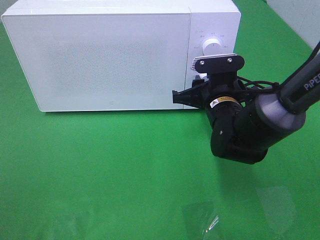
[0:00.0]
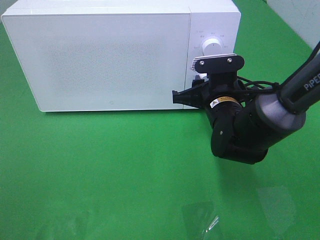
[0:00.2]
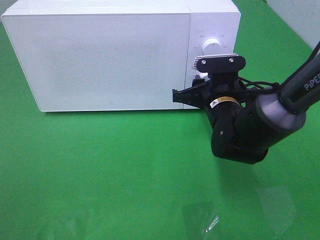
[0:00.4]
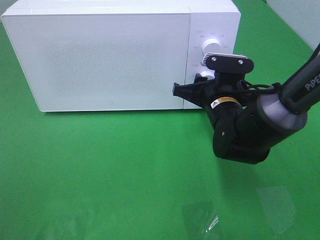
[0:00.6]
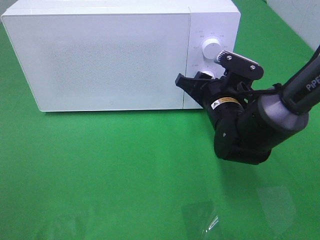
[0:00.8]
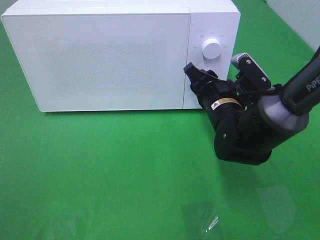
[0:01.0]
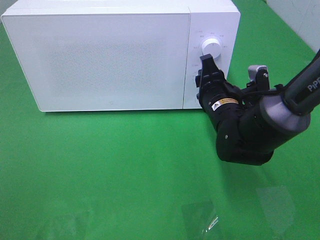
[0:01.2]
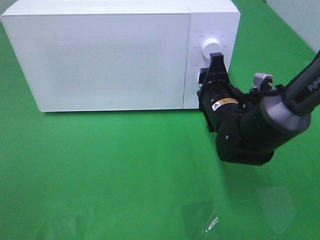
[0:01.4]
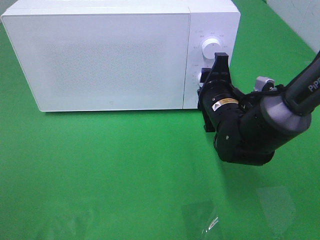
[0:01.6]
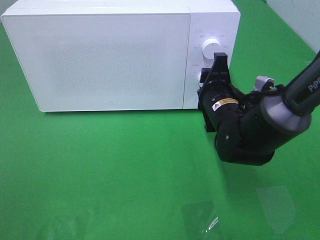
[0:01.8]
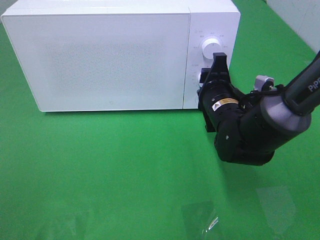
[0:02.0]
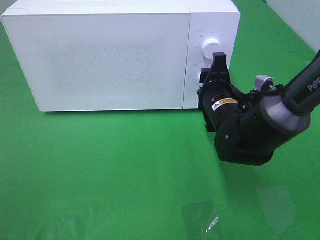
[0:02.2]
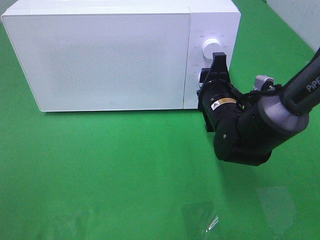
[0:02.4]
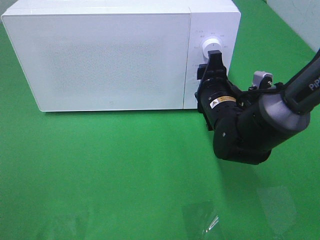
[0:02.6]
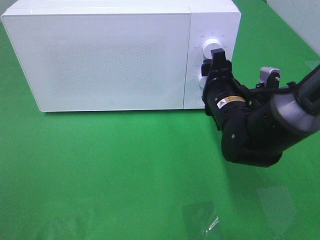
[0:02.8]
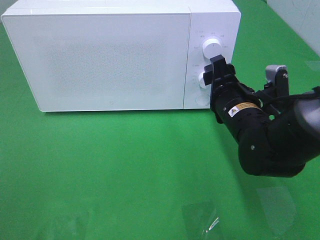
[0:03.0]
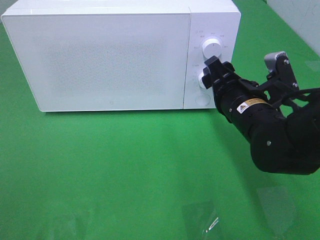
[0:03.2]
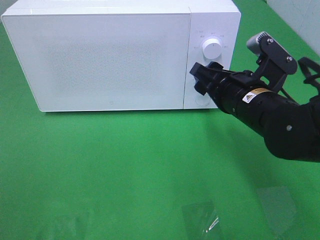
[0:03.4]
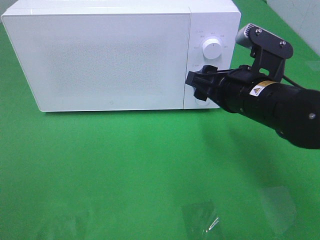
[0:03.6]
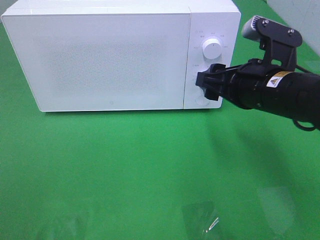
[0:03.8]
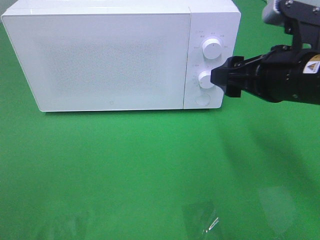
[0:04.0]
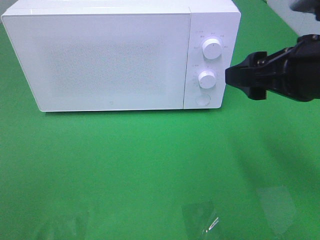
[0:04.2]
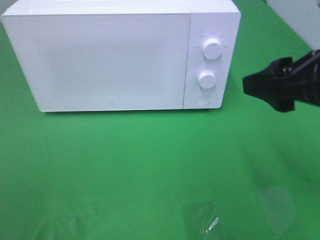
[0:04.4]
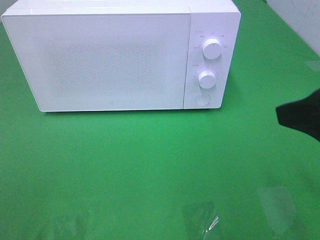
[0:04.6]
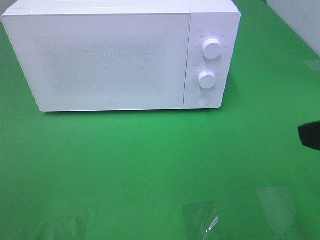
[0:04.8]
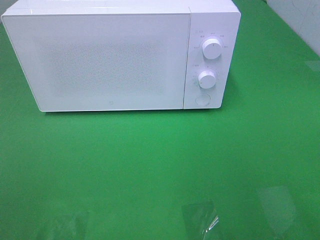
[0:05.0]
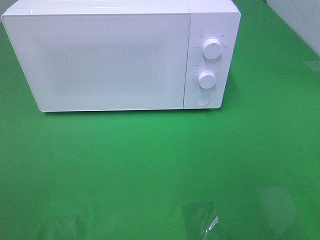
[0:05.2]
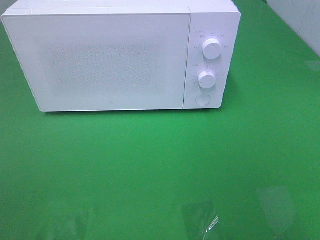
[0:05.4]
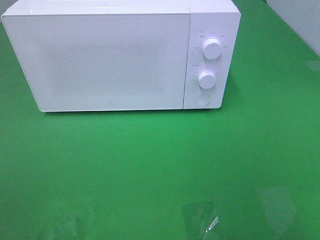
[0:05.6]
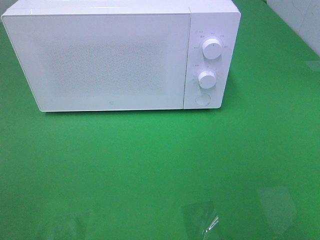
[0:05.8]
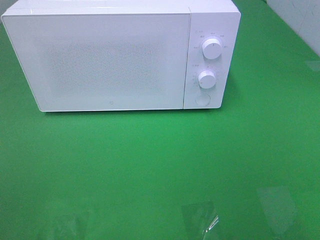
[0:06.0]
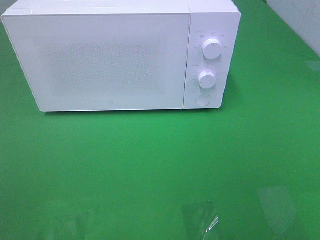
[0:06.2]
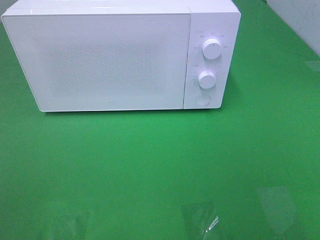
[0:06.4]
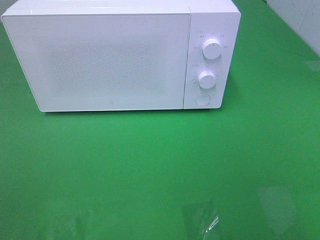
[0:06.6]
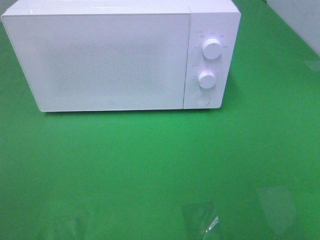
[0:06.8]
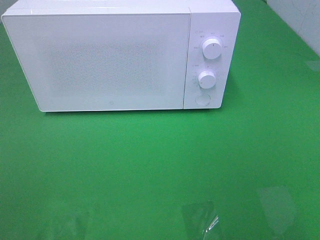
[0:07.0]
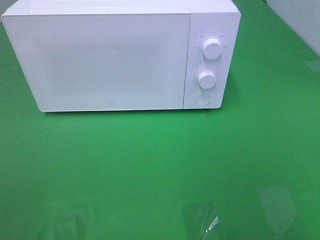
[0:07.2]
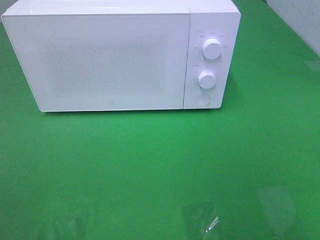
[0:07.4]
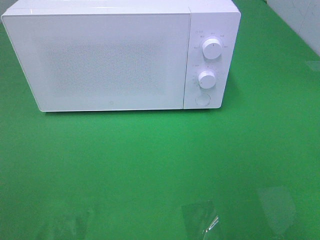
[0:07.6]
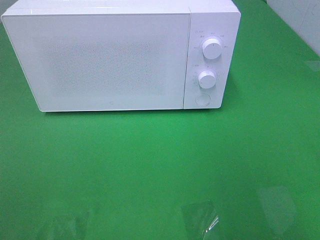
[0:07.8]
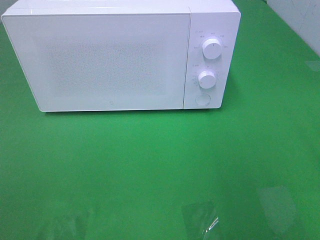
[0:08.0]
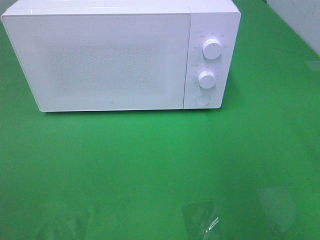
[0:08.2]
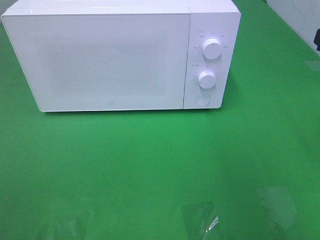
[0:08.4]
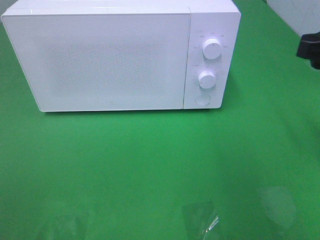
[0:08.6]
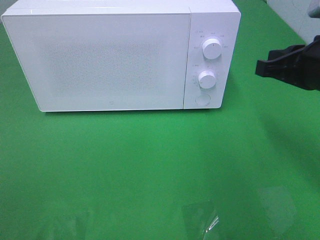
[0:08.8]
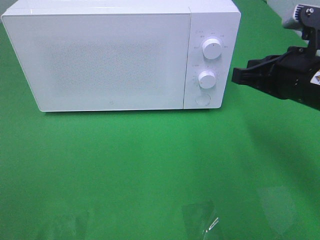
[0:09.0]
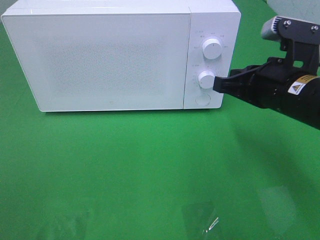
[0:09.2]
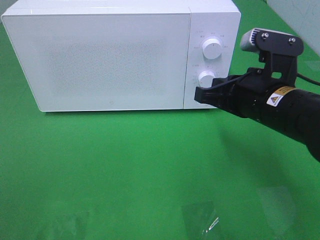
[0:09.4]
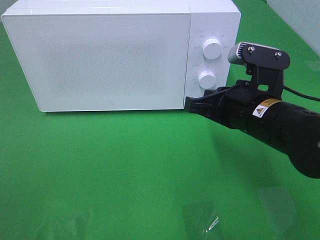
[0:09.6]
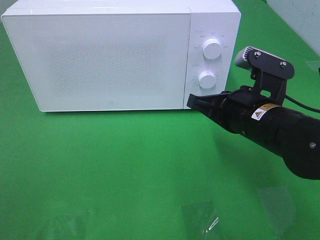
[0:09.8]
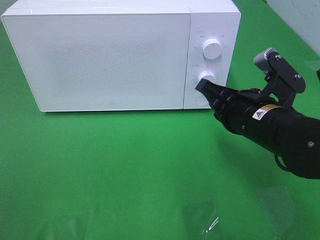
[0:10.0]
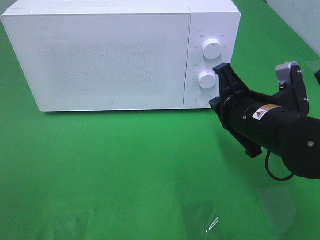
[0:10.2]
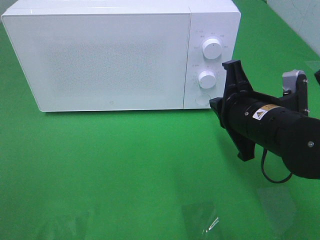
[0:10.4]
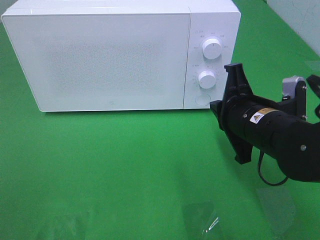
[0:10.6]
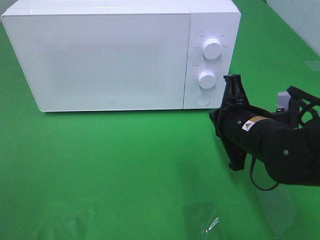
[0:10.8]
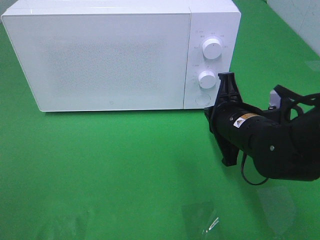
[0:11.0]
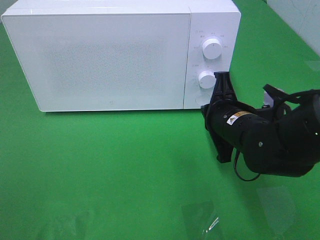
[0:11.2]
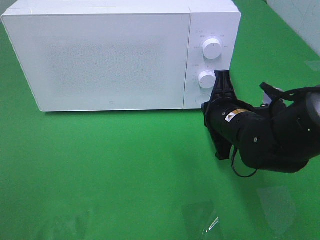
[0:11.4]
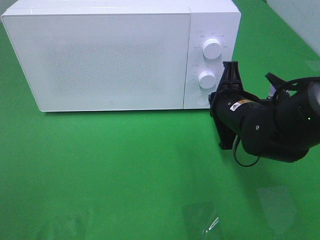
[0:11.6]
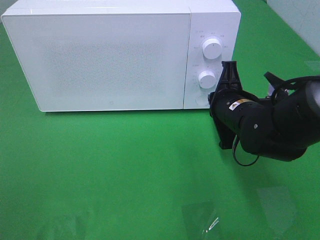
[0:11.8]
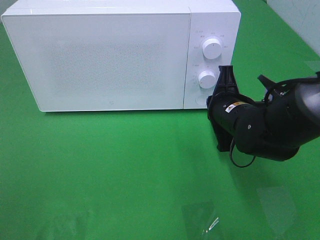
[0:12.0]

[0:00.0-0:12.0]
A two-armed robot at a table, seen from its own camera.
Task of the whole recording: Heat the burger.
Step, 0:00.0 to 0:02.4: Right hand: twist timer button.
0:03.0 to 0:04.4: The right gripper travels upward, backward and to the right by roughly 20 cm.
0:04.4 to 0:06.0: The right gripper heads backward and to the right, covering approximately 20 cm.
0:07.6 to 0:09.0: The right gripper heads forward, downward and to the left, covering about 20 cm, and closes up.
0:09.0 to 0:10.4: The right gripper travels to the left and downward by approximately 10 cm.
0:10.4 to 0:12.0: The right gripper shifts some 5 cm forward.

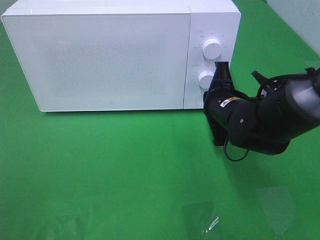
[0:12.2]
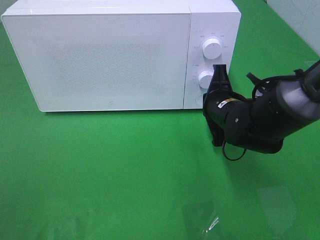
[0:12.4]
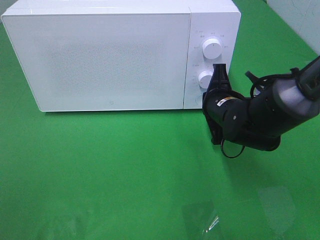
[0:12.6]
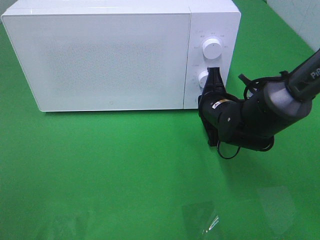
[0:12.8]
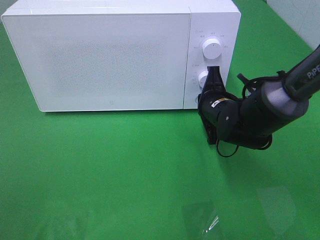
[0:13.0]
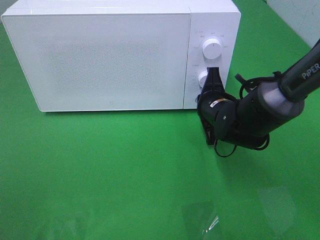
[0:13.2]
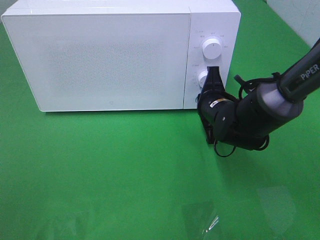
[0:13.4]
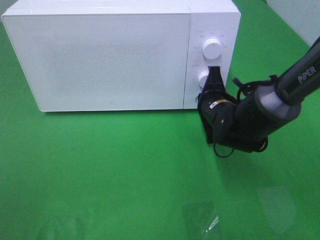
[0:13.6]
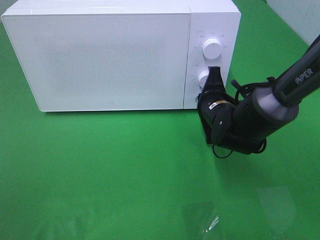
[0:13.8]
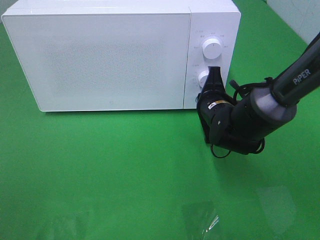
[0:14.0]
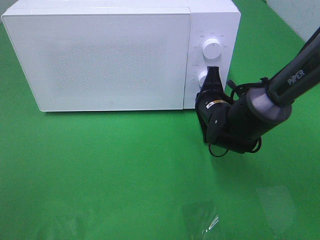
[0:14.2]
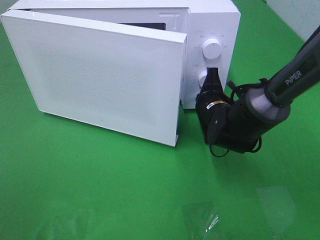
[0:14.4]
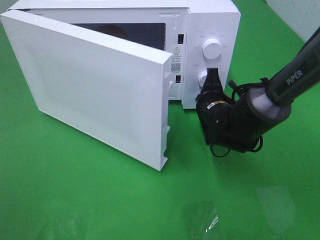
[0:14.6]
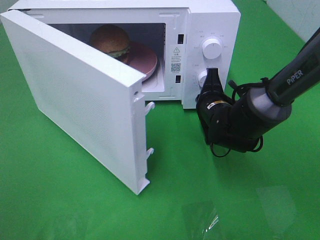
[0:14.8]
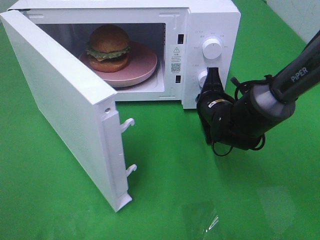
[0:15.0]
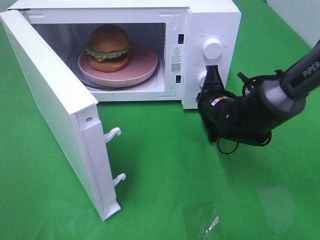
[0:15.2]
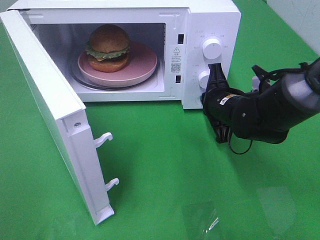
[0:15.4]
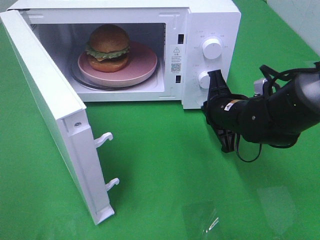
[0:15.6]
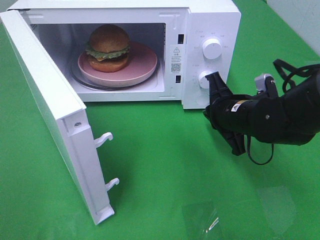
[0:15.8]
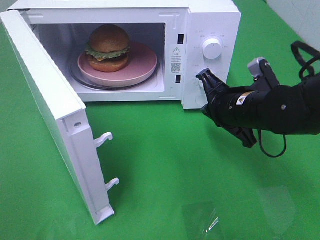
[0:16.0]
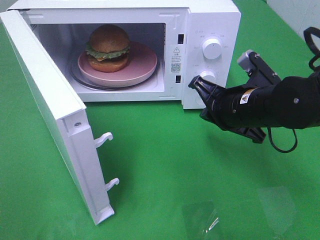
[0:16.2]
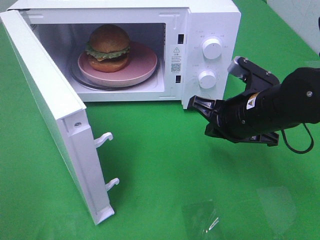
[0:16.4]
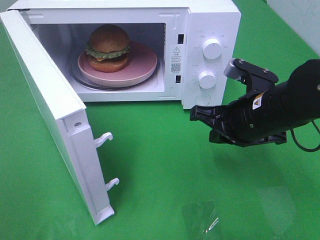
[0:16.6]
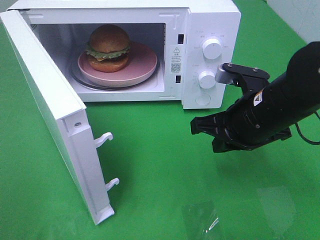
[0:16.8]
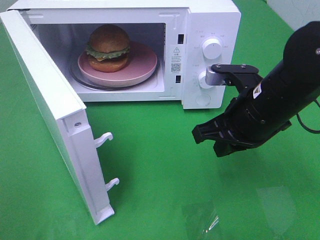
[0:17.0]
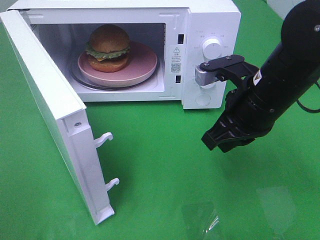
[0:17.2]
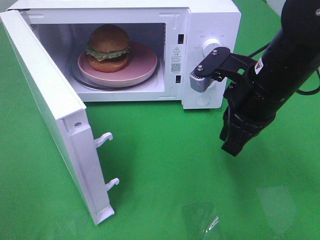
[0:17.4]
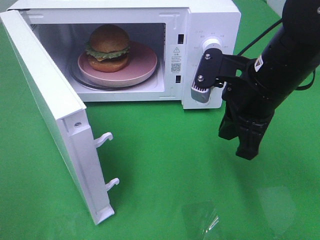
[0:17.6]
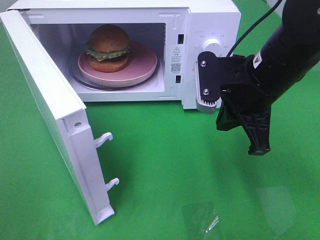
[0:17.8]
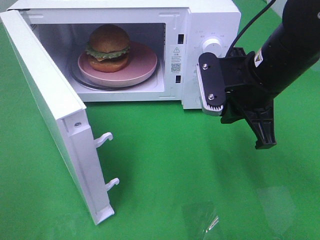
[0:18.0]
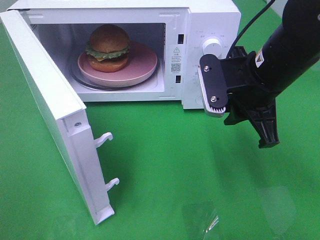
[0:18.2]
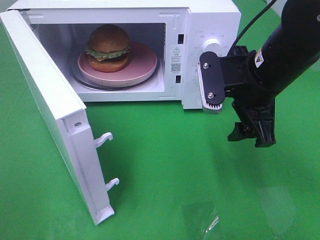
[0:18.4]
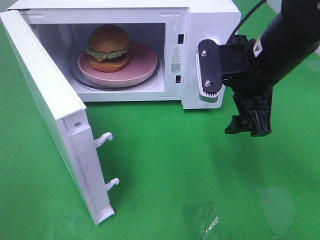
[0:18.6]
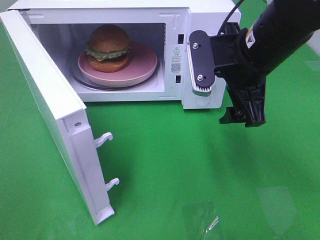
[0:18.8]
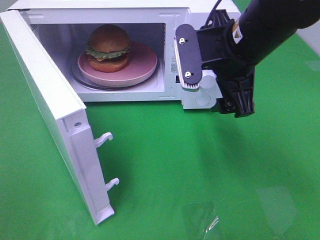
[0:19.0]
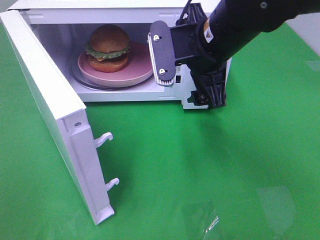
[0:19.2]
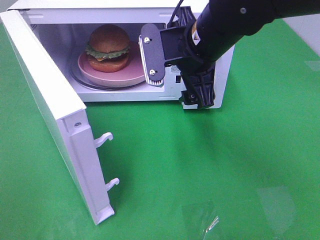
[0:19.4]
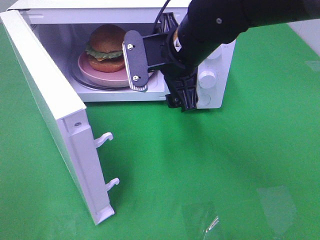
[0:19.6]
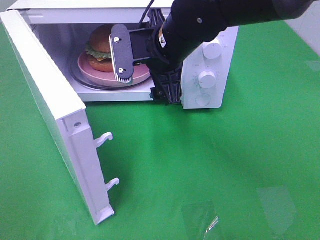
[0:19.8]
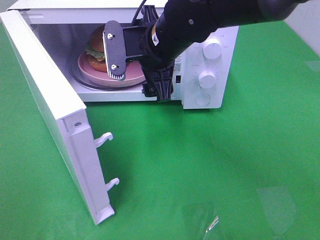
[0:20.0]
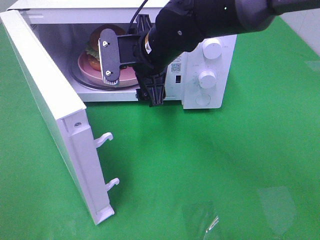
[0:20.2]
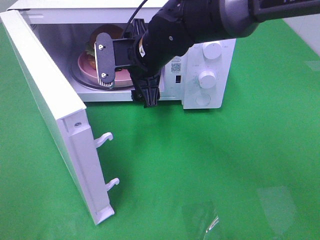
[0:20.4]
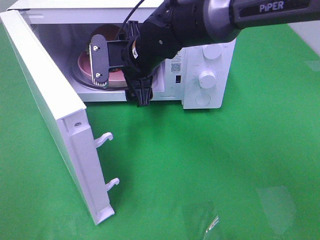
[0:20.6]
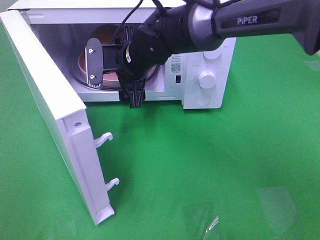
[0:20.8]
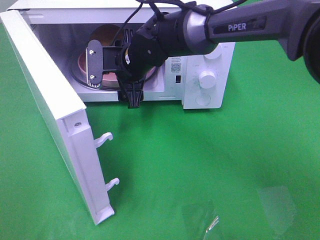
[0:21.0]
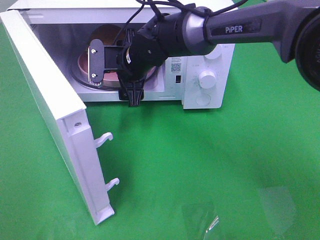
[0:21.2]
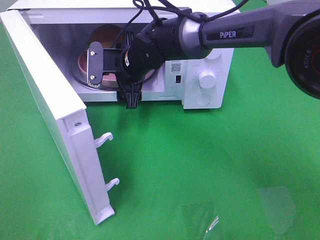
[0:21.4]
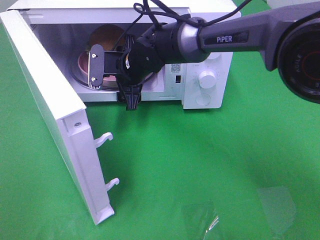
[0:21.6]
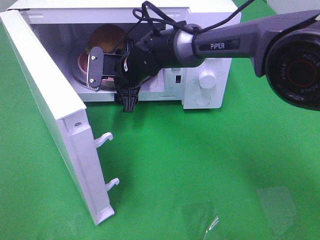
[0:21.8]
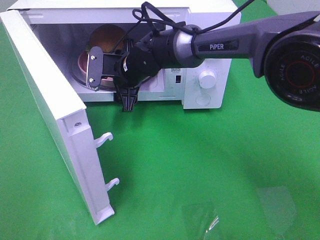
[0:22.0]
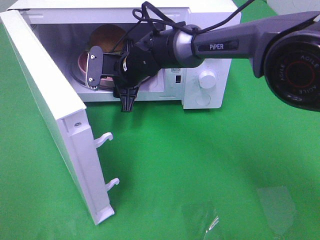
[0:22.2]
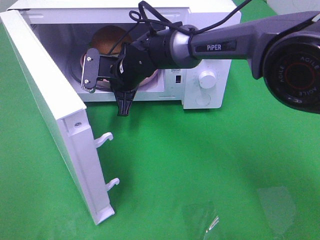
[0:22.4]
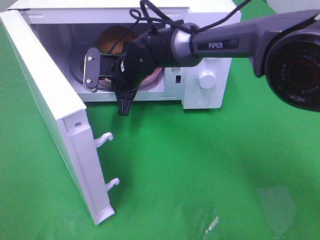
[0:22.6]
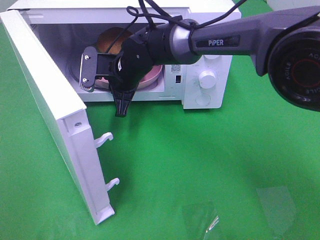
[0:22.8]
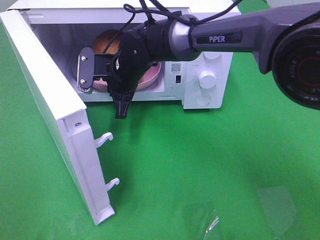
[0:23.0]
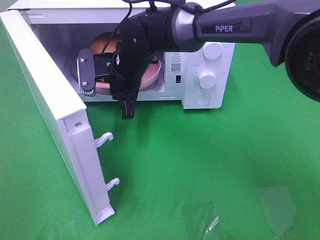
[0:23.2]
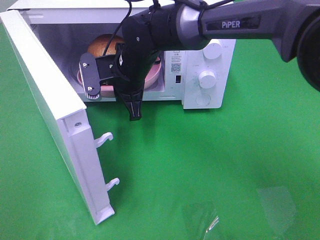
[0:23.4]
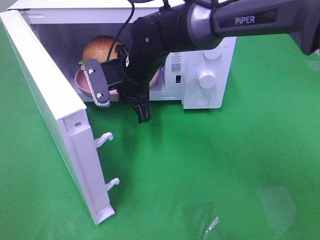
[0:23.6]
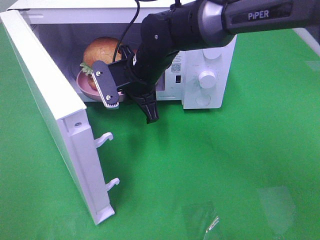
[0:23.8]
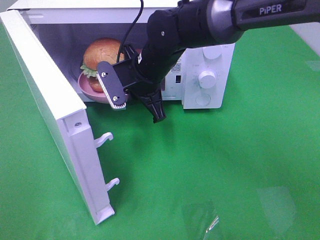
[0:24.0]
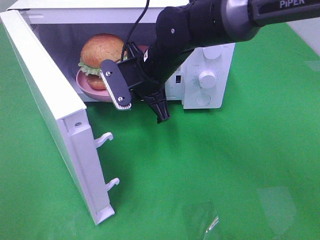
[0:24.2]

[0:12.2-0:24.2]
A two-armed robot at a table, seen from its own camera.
Task of the whole recording: Heat the burger.
Step, 0:12.2 to 0:15.4: Right hand: press the switch.
Step, 0:15.6 to 0:22.4: Right hand: grab the plate with the hamburger.
0:12.2 to 0:13.8: The grippers stay close to where they were, moving slightly.
0:15.2 to 0:16.6: The right gripper travels backward and upward by approximately 10 cm.
0:16.6 to 0:18.2: The right gripper travels upward by some 5 cm.
0:18.2 to 0:19.8: The right gripper moves to the left and forward, approximately 15 cm, and opens up.
0:19.8 to 0:21.2: The right gripper shifts roughly 10 cm forward, downward and to the left.
0:21.2 to 0:22.6: The right gripper closes up.
0:22.6 to 0:24.2: The right gripper is displaced backward and to the right by about 10 cm.
